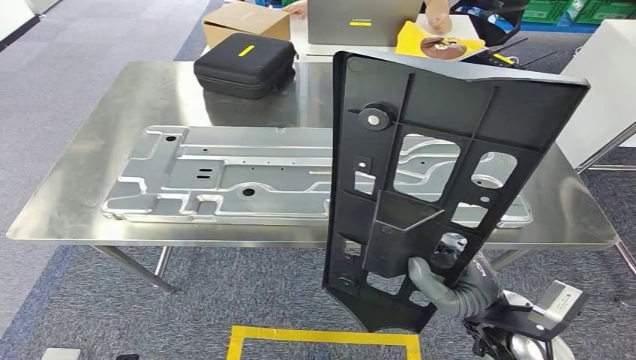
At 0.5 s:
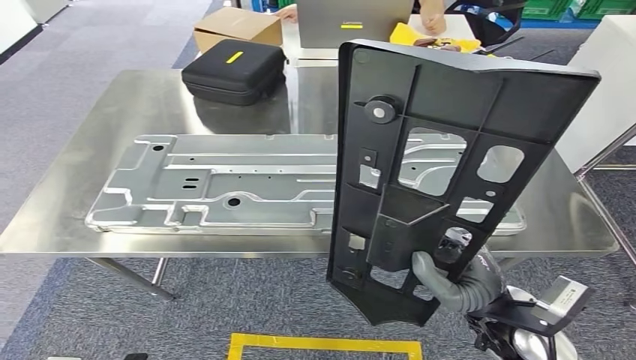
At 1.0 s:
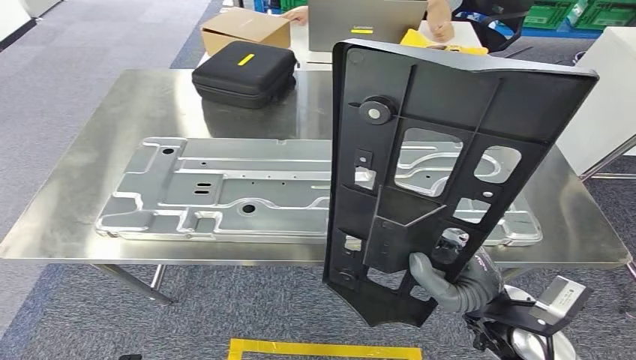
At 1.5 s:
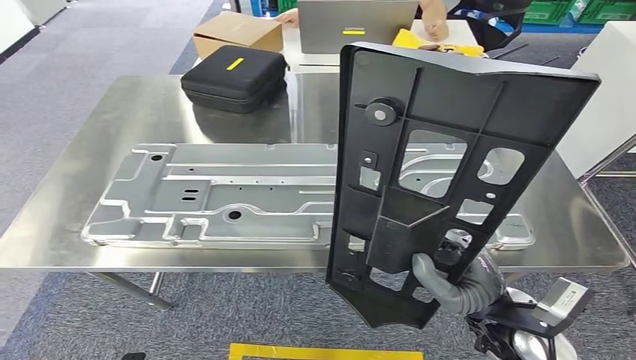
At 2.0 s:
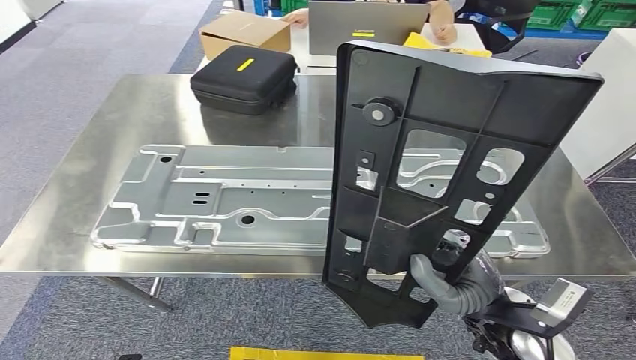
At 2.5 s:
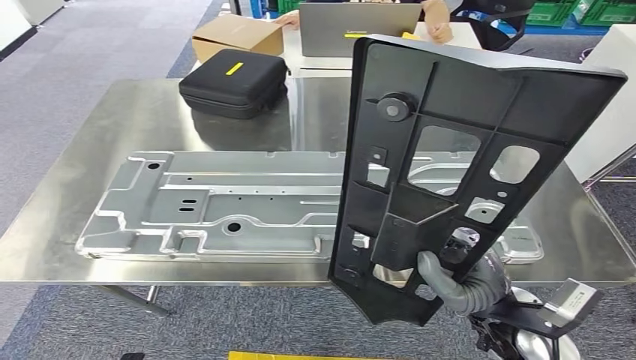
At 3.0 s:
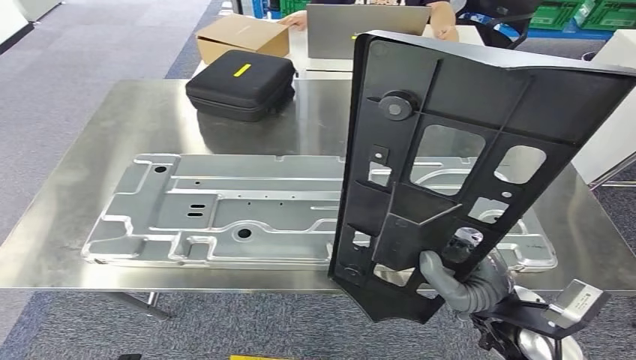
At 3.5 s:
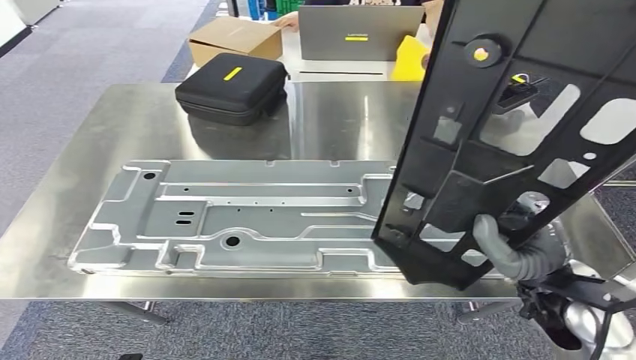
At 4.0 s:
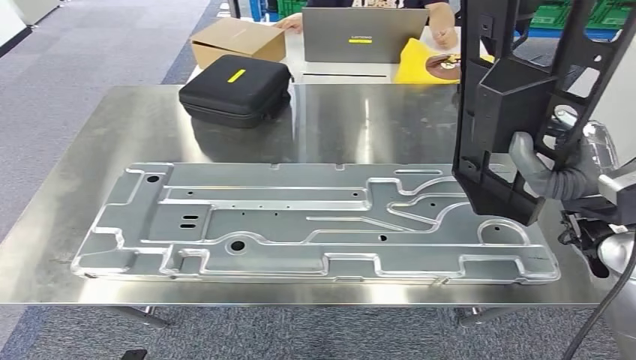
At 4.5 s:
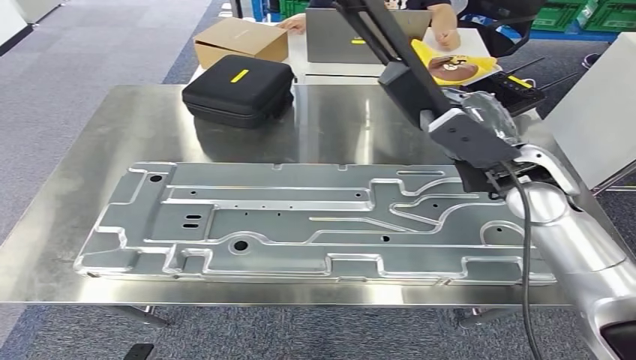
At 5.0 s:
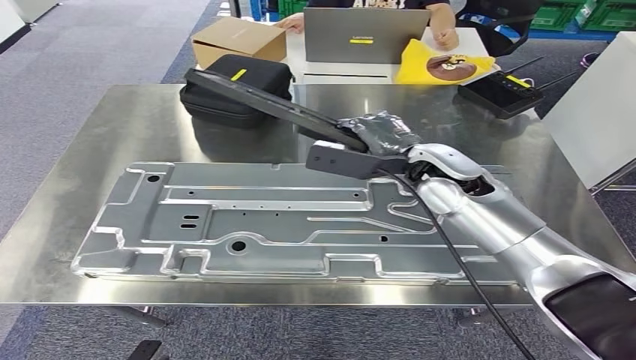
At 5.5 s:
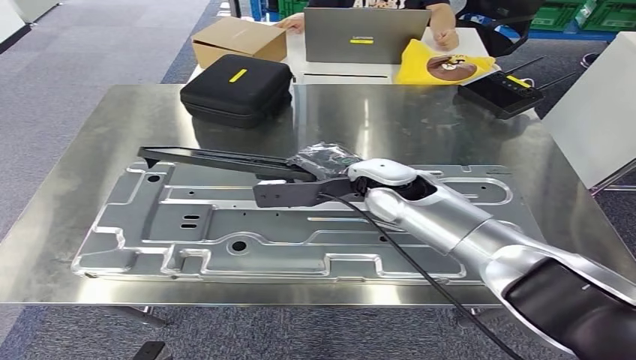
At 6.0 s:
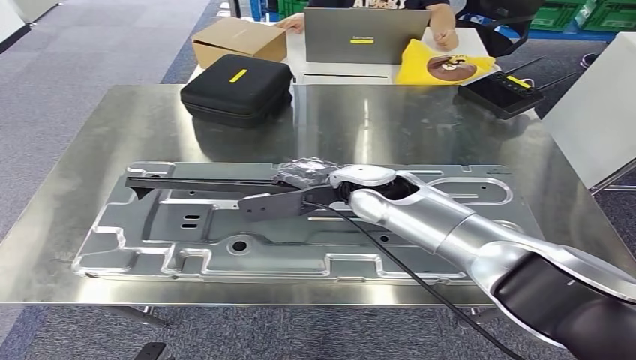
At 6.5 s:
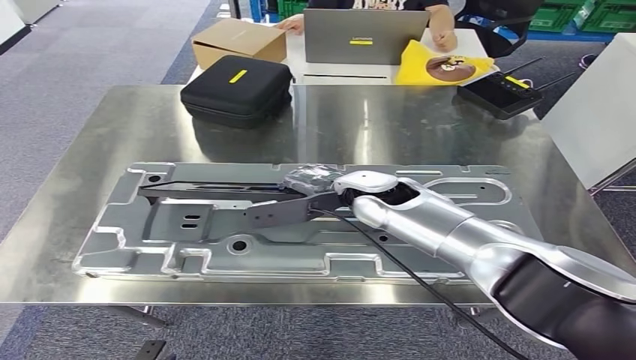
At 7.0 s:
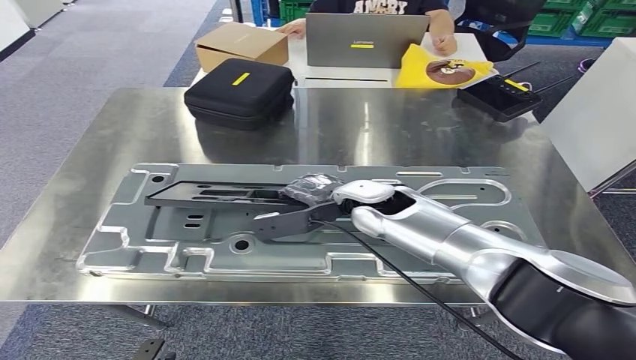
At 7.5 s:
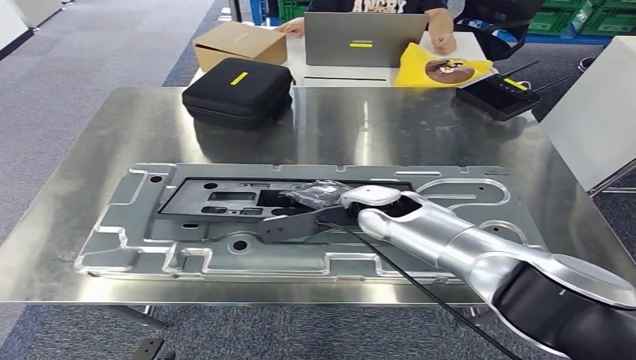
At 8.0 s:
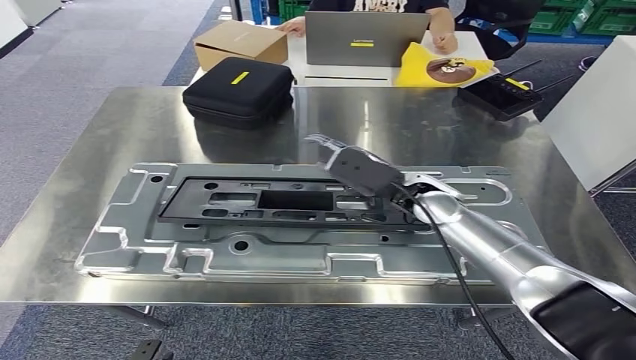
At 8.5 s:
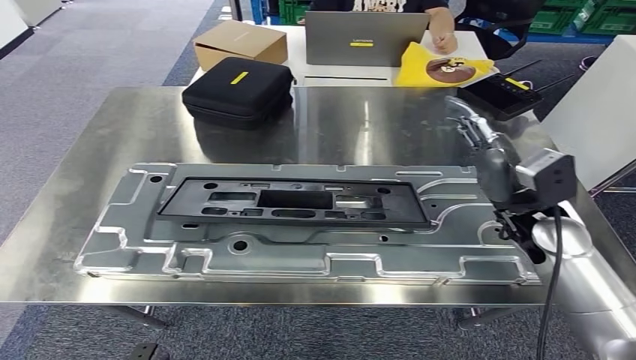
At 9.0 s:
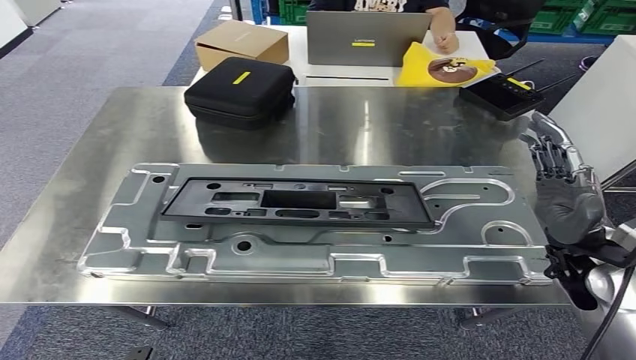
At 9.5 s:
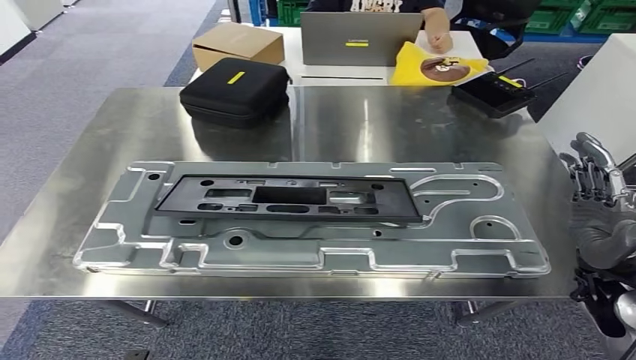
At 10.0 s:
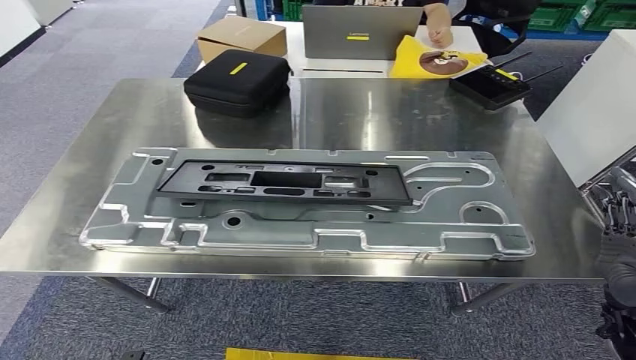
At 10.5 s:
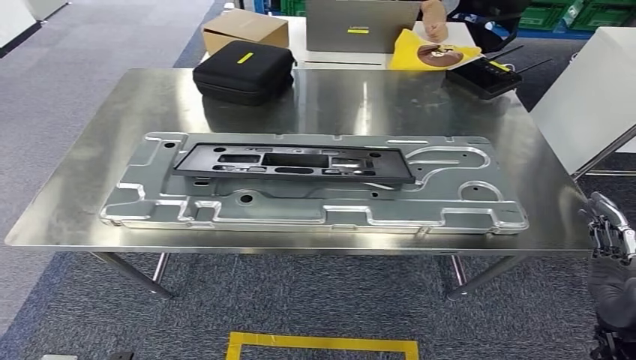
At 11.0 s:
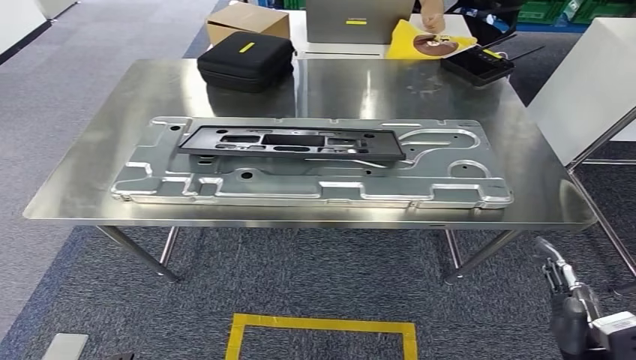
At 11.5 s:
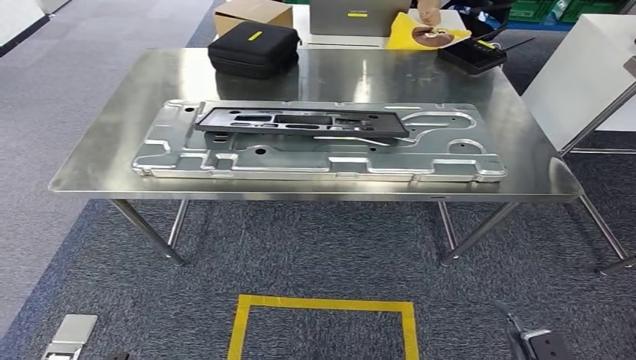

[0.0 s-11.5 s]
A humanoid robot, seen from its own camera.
Step, 2.5 to 9.5 s: Insert the large material into the corresponding slot on the workbench.
6.0 to 7.5 s: The right hand travels downward by approximately 5 cm.

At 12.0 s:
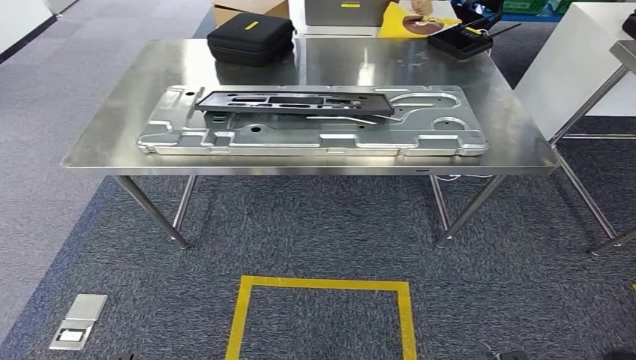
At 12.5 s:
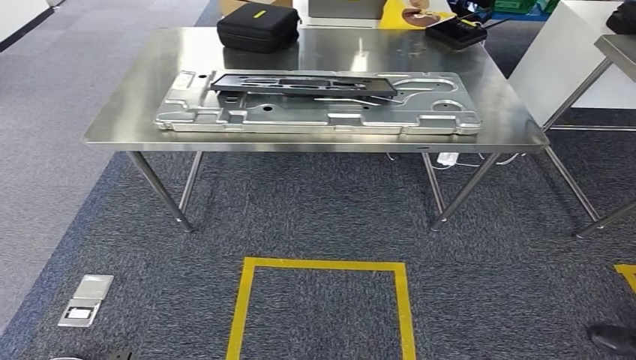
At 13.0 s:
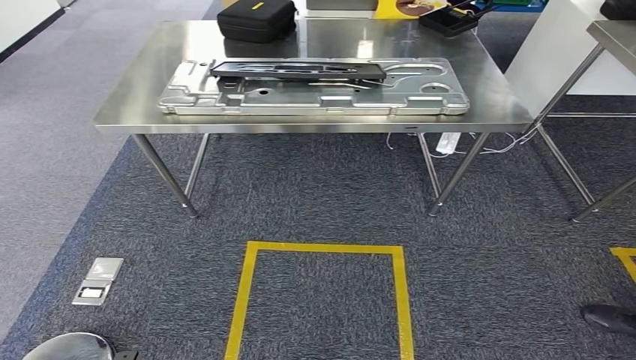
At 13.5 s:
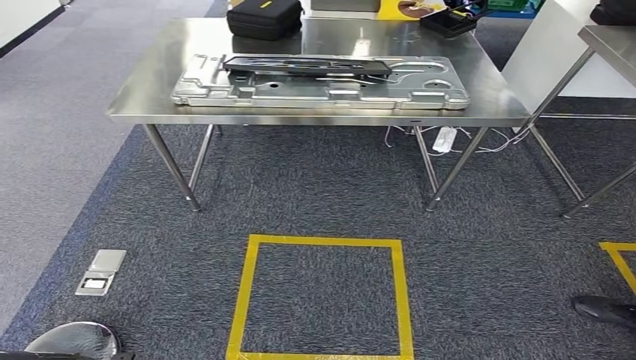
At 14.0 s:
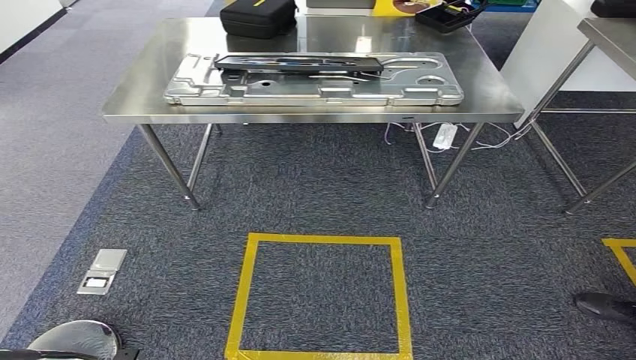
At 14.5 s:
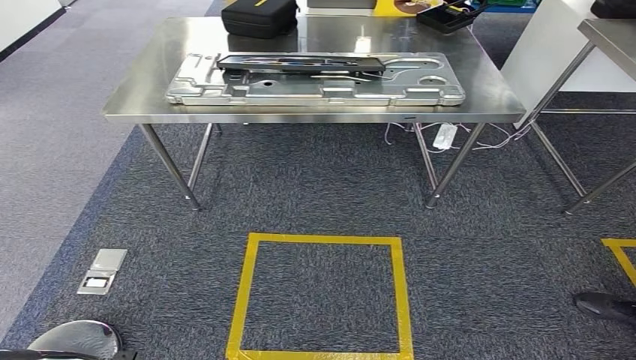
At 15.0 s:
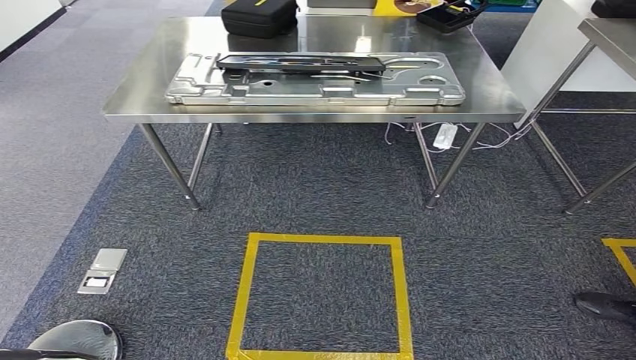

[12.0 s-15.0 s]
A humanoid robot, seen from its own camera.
Step, 12.0 to 15.0 s: Return to the initial position at the shelf.
13.5 to 15.0 s: The hands stay close to where they were, moving slightly.
